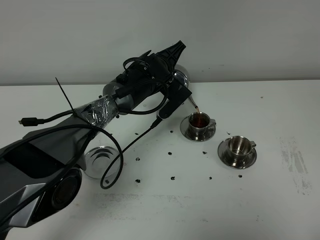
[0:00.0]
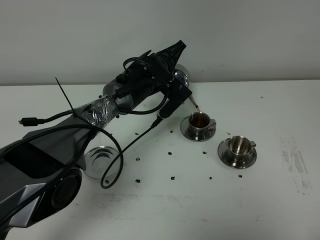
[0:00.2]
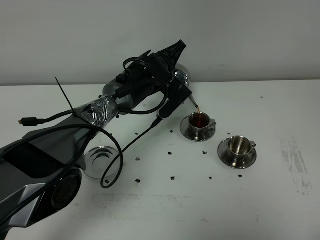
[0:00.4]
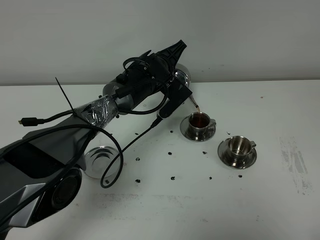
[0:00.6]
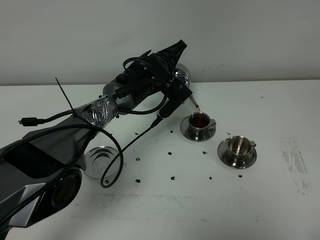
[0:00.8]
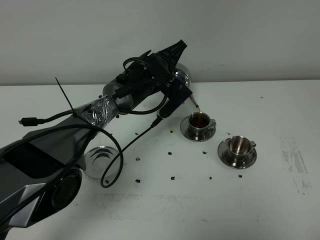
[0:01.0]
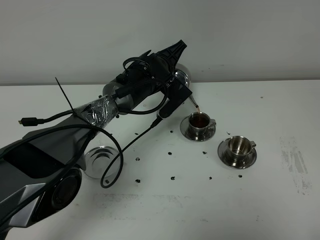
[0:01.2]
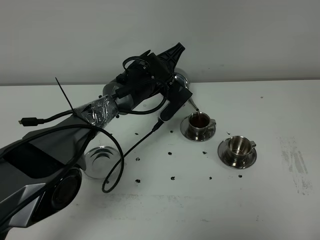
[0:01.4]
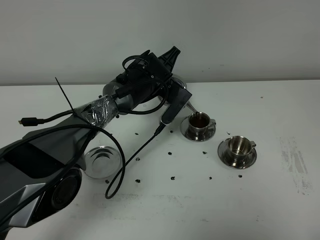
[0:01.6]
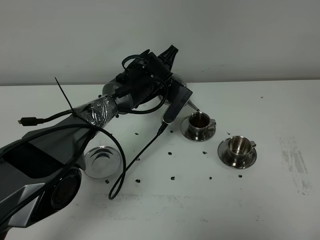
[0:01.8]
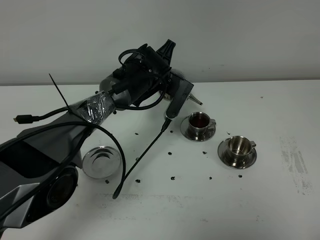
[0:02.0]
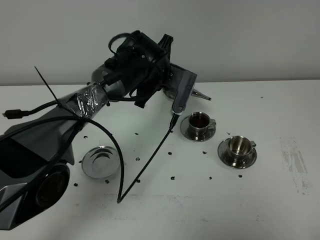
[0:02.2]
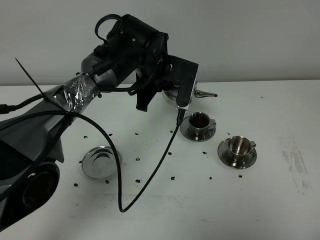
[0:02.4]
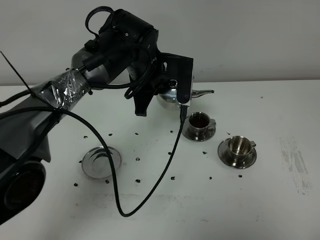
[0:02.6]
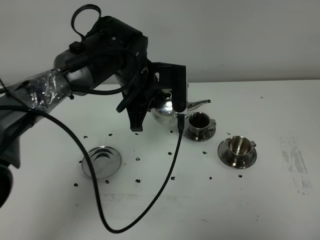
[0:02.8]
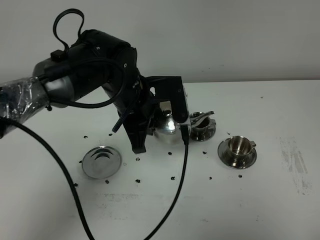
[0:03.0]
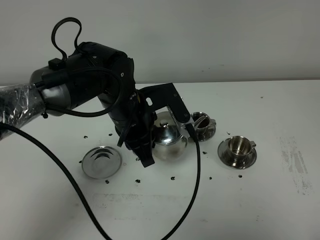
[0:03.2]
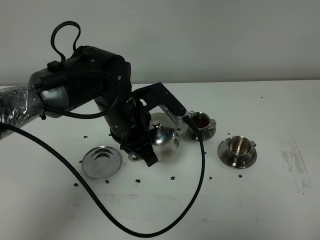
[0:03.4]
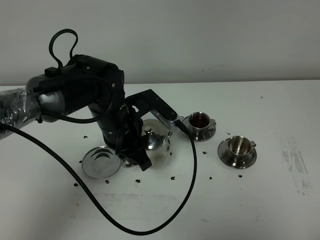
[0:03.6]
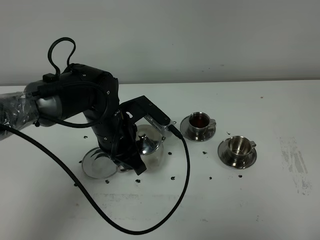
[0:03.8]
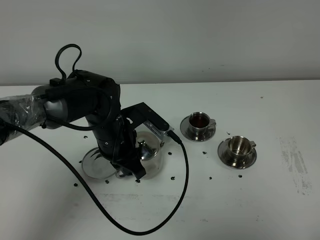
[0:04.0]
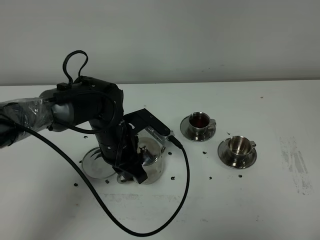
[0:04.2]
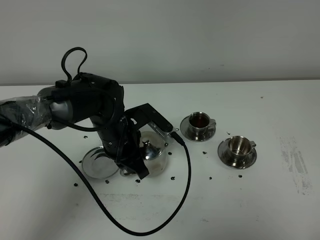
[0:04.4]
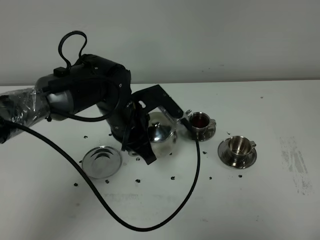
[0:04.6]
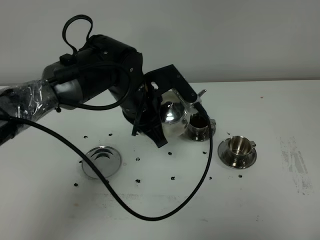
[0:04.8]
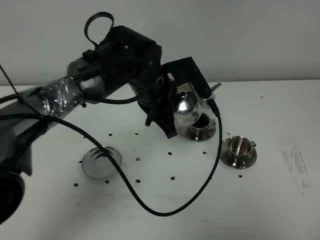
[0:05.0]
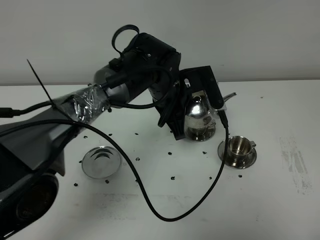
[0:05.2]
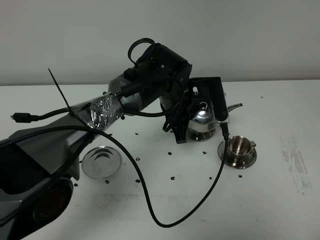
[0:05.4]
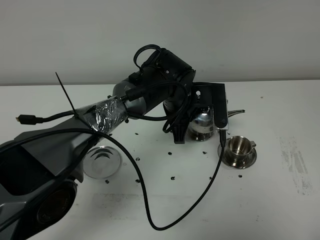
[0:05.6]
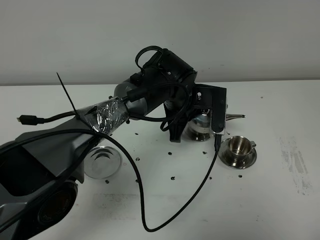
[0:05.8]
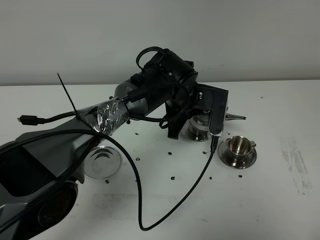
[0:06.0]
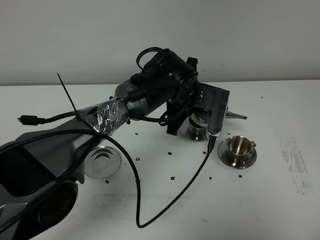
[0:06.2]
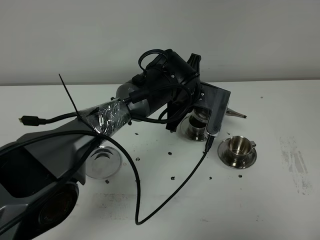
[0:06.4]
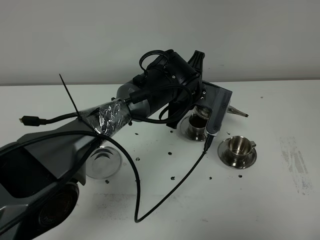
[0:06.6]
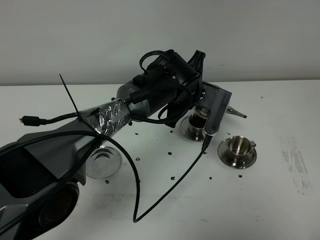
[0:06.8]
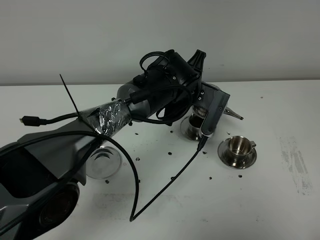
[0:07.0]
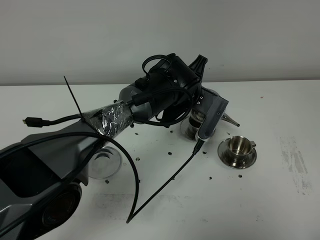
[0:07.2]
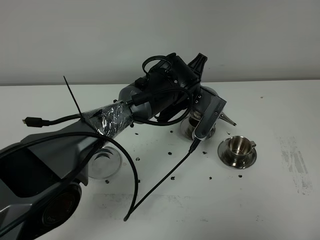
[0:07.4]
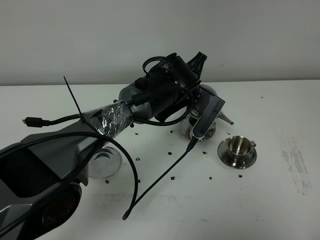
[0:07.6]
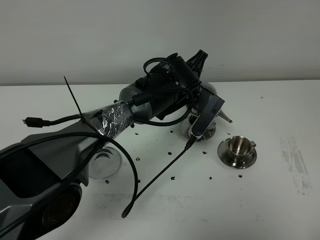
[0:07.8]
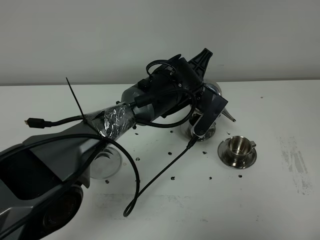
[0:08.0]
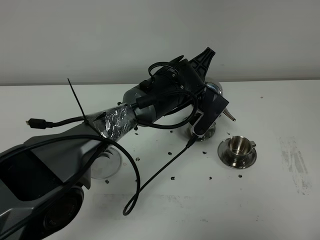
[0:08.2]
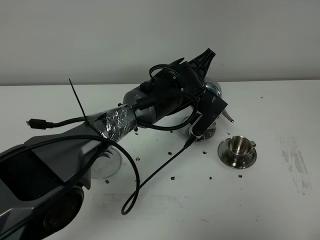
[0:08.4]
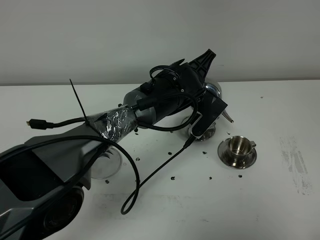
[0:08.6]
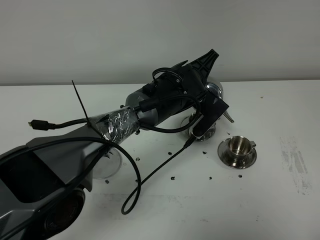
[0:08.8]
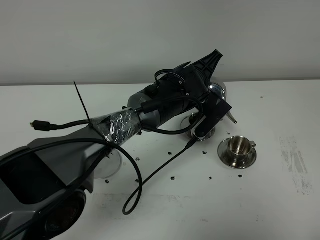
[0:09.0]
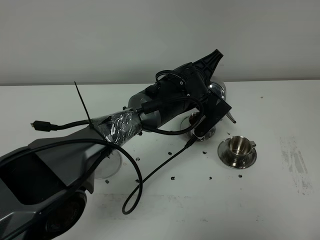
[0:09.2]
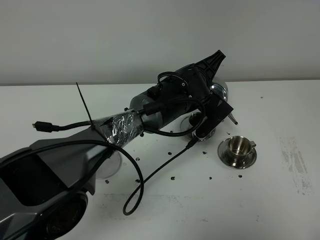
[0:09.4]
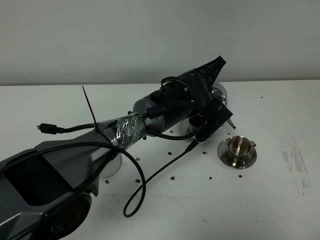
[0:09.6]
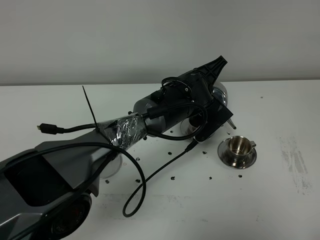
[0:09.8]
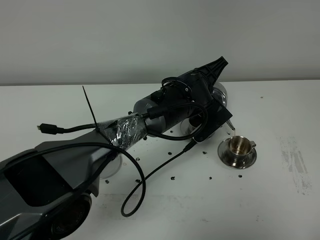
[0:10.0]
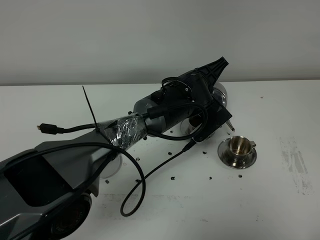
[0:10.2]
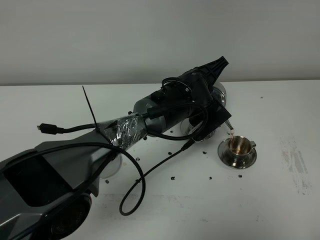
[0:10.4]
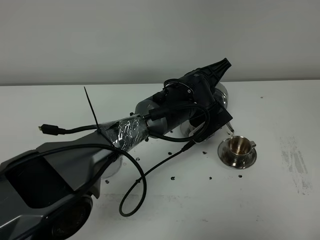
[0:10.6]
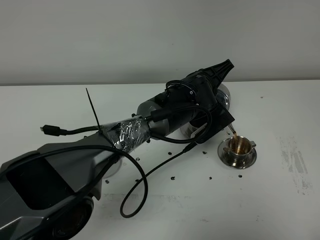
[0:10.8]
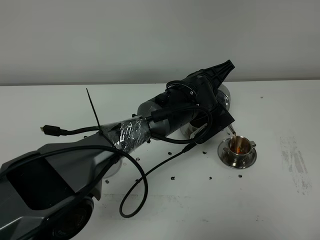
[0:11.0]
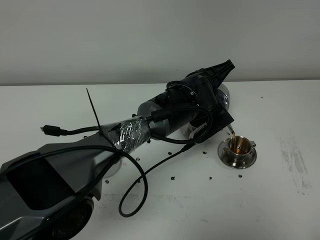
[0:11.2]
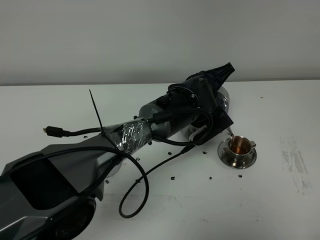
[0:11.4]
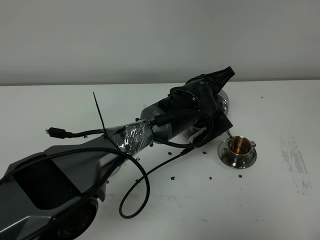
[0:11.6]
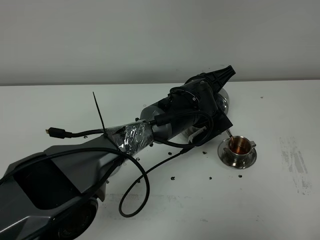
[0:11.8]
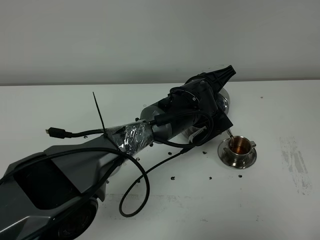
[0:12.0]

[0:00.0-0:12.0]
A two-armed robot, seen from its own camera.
Task of the whole recording: grasp the stainless steel teapot and pour the tea into the two stainless steel teacups one by one, put the stainless steel teapot back in its original place.
0:00.0 to 0:01.6: The grippers make only small movements.
0:01.6 to 0:03.0: The left gripper shifts roughly 15 cm backward and upward.
0:03.0 to 0:04.4: The left gripper travels downward by approximately 5 cm.
0:04.4 to 0:06.0: The left gripper goes roughly 15 cm to the right and forward.
0:07.6 to 0:09.0: There are only small adjustments of the grippers.
0:09.0 to 0:12.0: There are only small adjustments of the grippers.

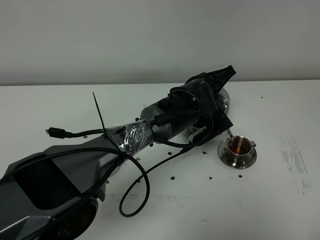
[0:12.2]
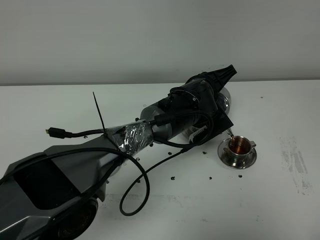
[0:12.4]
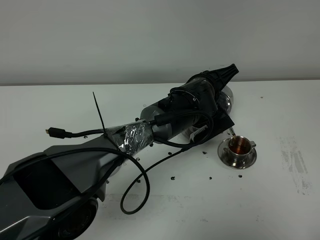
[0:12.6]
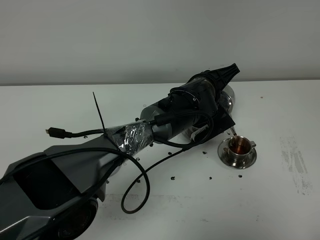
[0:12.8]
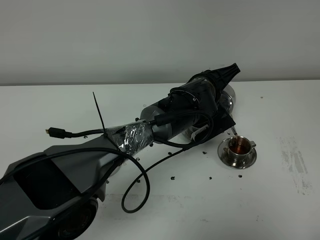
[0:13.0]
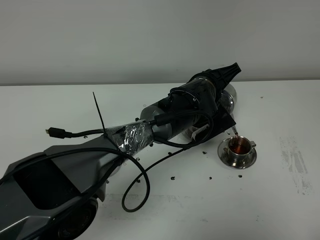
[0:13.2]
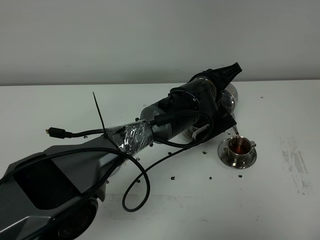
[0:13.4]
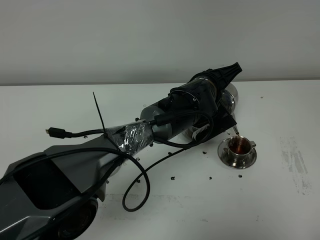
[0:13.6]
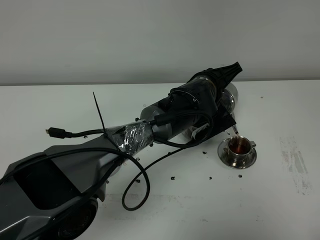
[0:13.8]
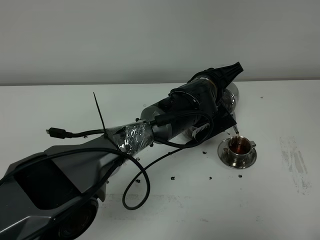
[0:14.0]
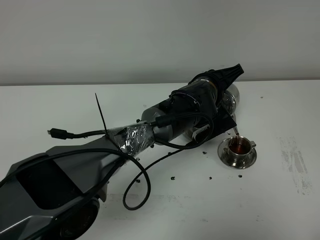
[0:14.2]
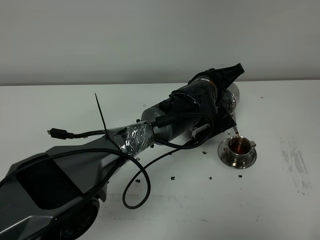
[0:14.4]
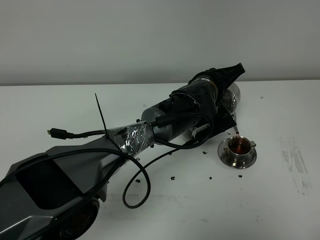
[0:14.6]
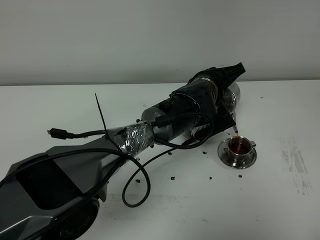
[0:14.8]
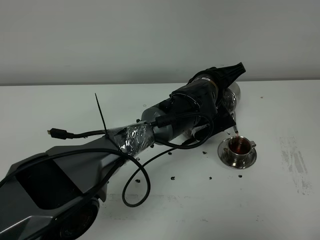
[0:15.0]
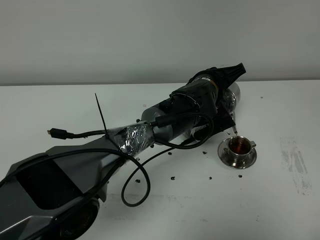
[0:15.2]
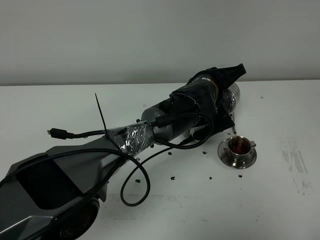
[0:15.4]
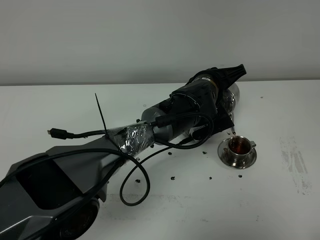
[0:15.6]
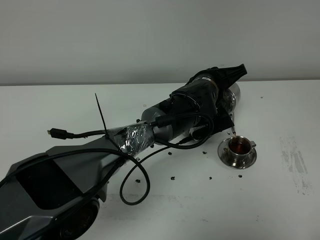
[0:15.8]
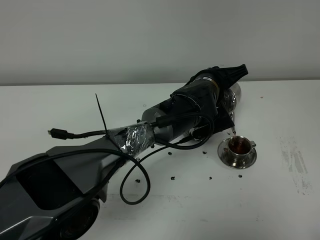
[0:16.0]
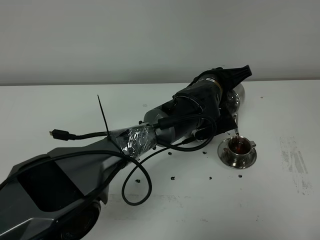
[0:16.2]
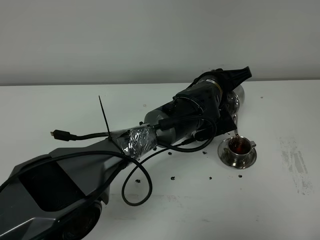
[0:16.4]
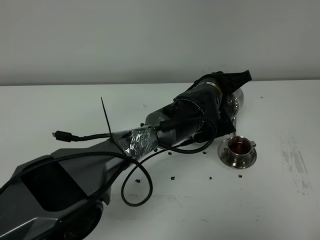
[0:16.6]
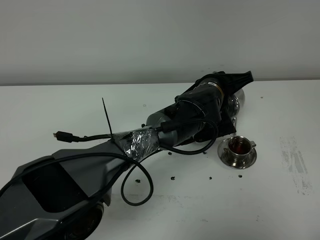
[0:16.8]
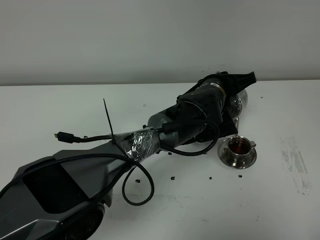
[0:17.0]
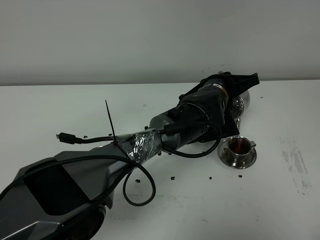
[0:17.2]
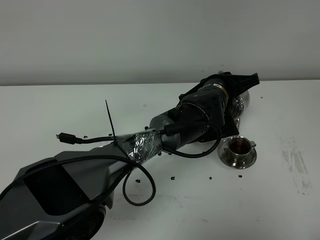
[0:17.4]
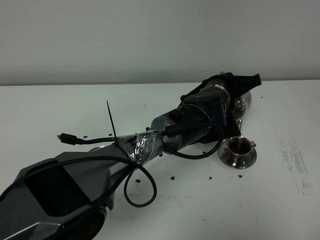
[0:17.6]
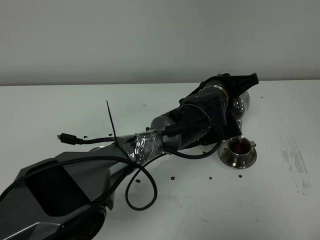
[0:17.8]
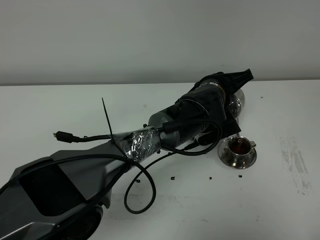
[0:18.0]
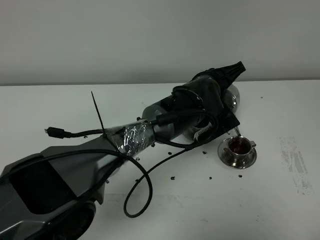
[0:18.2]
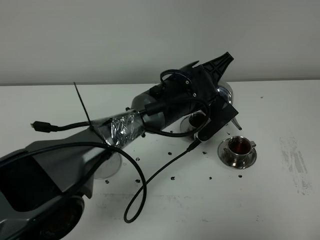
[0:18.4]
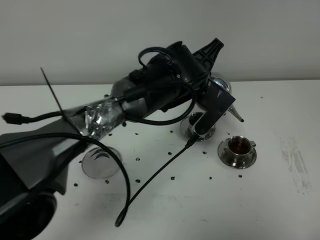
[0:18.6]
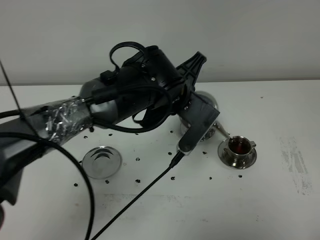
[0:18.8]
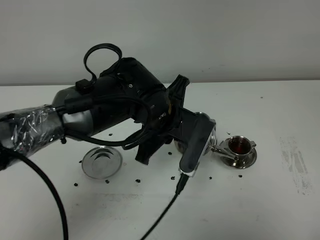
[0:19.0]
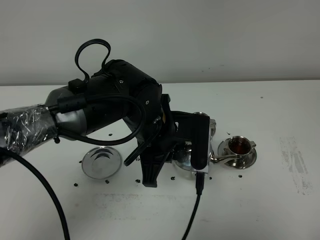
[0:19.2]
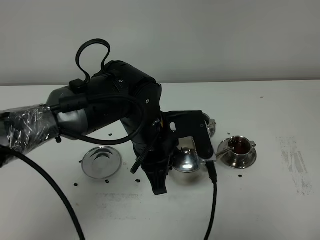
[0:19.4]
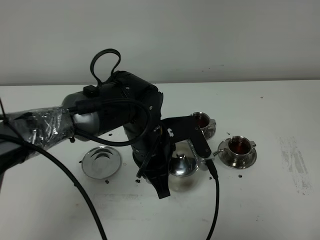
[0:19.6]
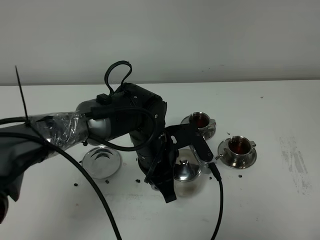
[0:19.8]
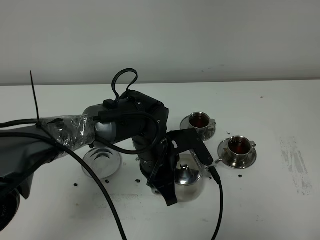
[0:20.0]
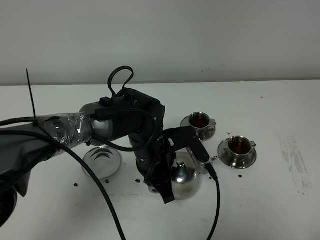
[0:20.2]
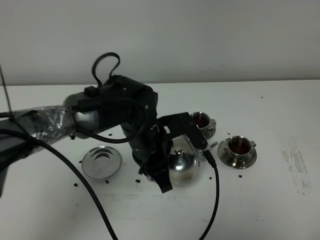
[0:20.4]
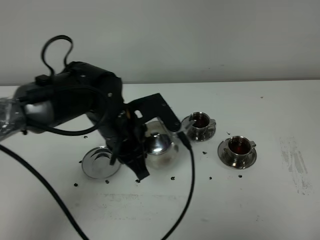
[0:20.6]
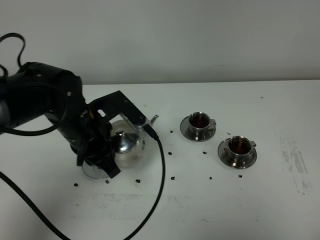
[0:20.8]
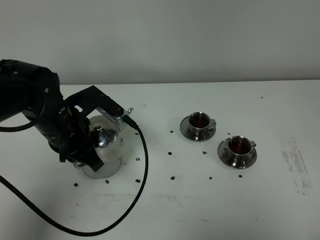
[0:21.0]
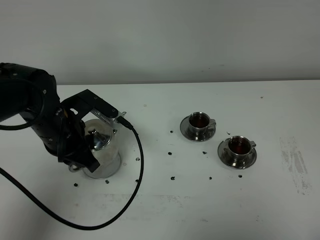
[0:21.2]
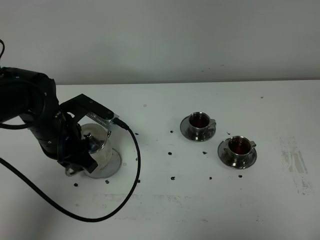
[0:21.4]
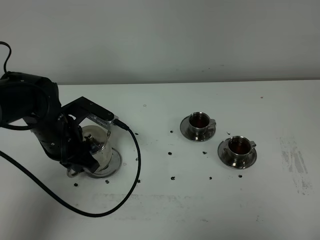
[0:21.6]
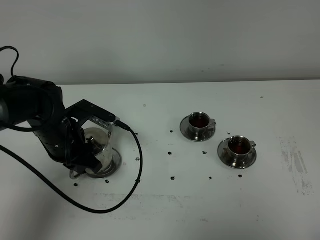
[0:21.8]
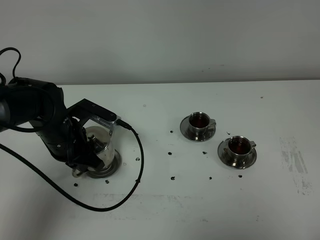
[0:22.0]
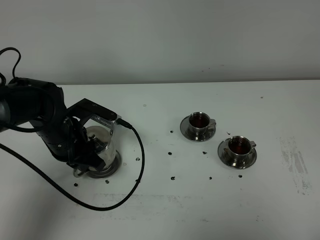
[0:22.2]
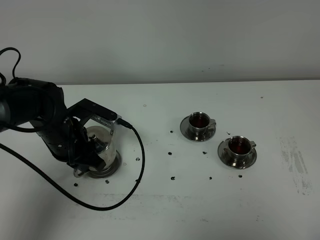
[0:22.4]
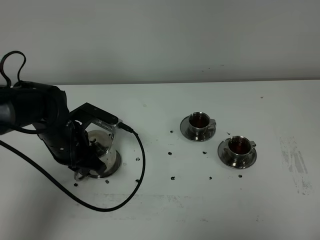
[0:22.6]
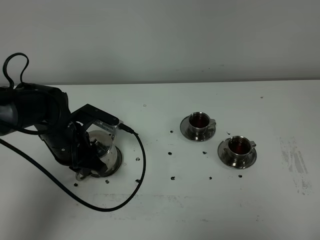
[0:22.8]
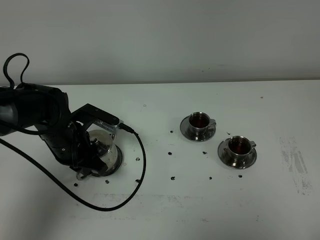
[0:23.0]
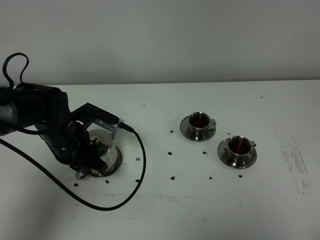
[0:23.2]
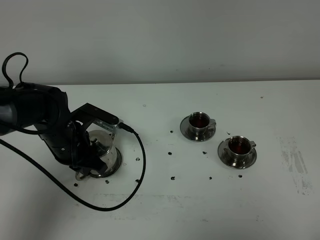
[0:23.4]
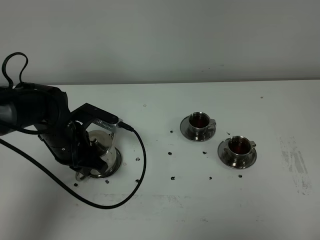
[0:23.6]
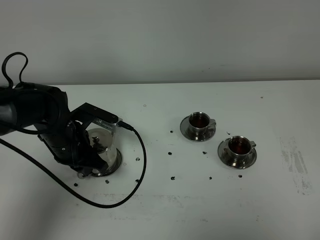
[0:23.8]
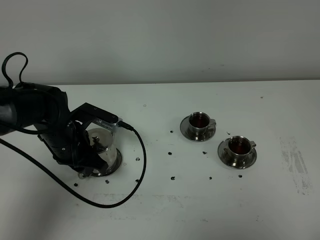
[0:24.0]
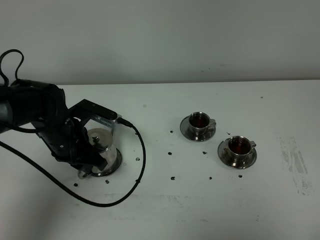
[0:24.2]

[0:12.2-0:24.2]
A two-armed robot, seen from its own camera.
Task of the whole recording: grasp the stainless steel teapot and pour the tea into the two stainless steel teacups one by one, put the stainless steel teapot back in its original place.
Step, 0:12.2 to 0:18.4: Pour tea into the teacup with the left gripper.
0:12.2 to 0:13.8: The grippers stay close to where they were, moving slightly.
0:13.8 to 0:15.2: Both grippers stay about where they are.
0:15.2 to 0:18.2: The grippers make only small movements.
0:18.2 to 0:19.8: The left gripper heads to the left and backward, covering roughly 15 cm.
0:19.8 to 0:21.2: The left gripper heads to the left, covering about 15 cm.
0:21.2 to 0:22.6: The left gripper travels downward by roughly 5 cm.
0:22.6 to 0:24.2: Neither gripper changes place.
